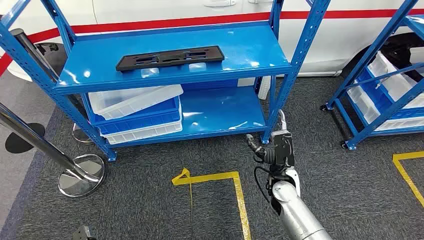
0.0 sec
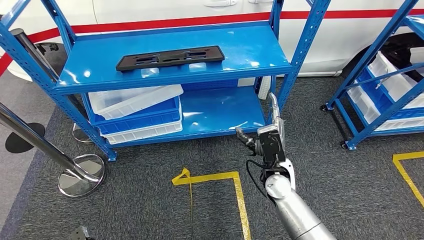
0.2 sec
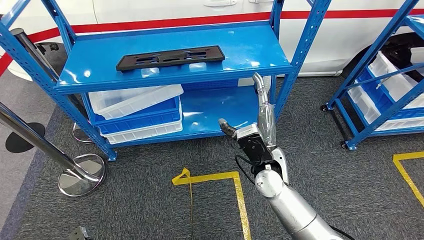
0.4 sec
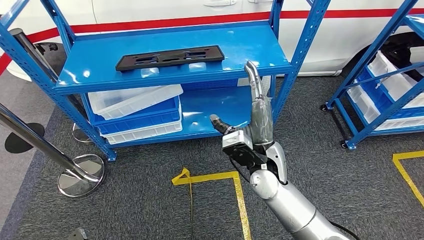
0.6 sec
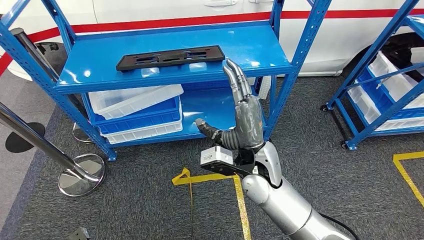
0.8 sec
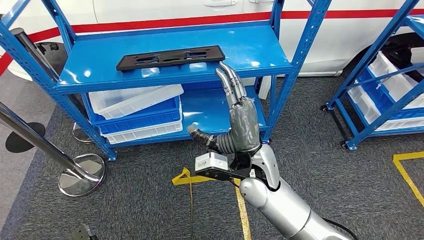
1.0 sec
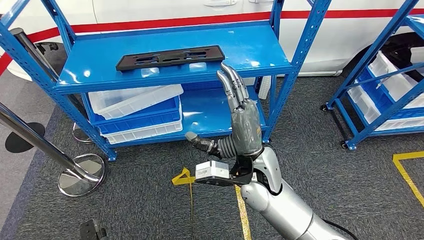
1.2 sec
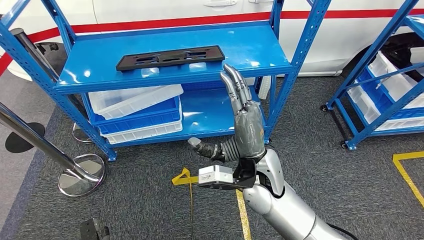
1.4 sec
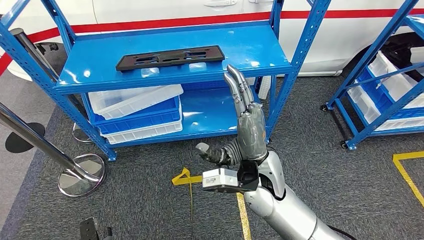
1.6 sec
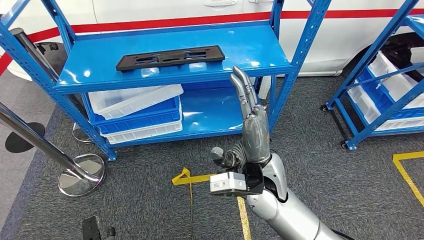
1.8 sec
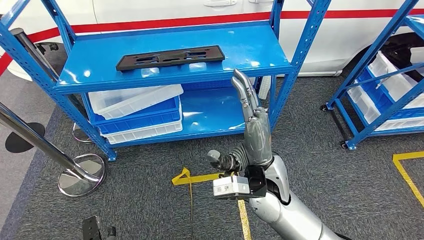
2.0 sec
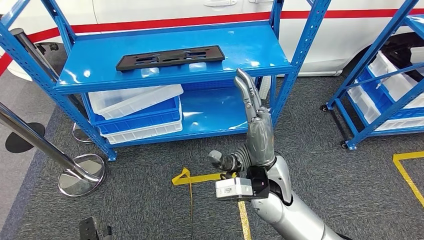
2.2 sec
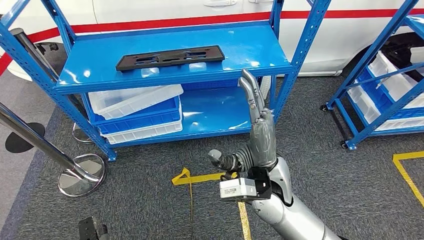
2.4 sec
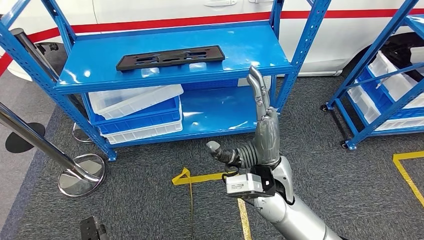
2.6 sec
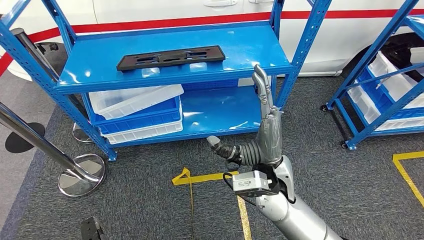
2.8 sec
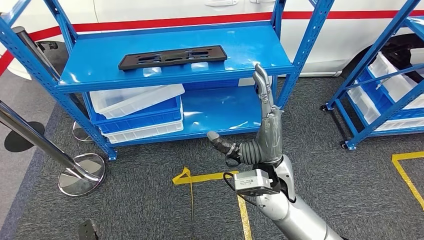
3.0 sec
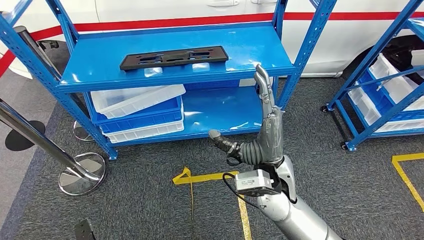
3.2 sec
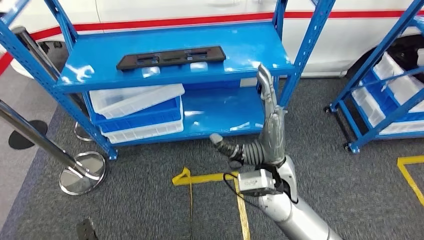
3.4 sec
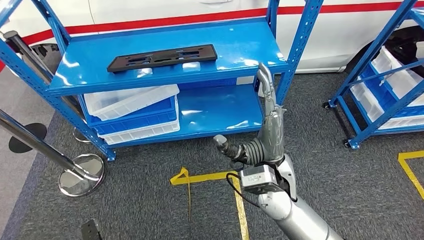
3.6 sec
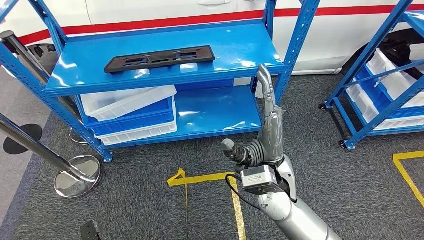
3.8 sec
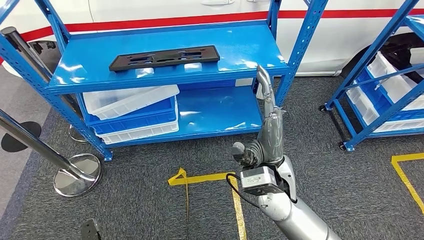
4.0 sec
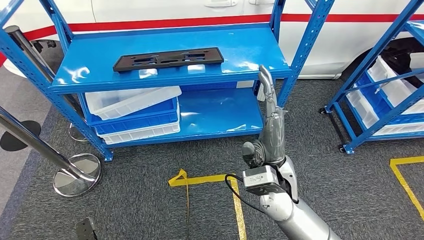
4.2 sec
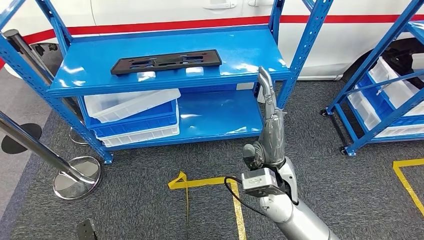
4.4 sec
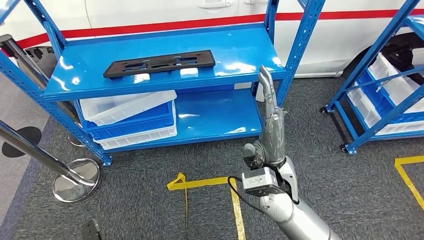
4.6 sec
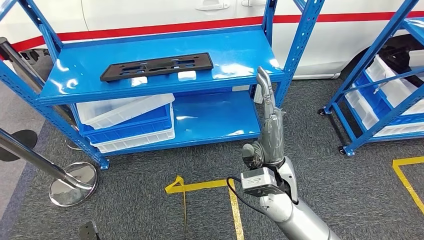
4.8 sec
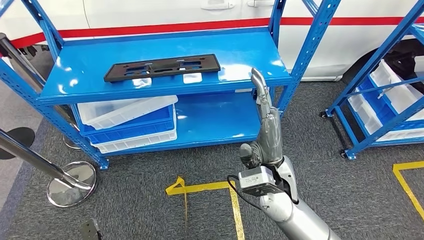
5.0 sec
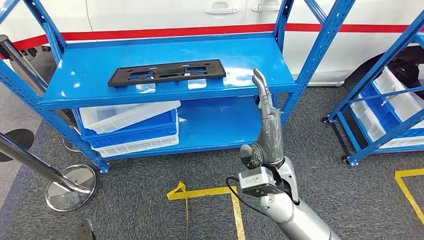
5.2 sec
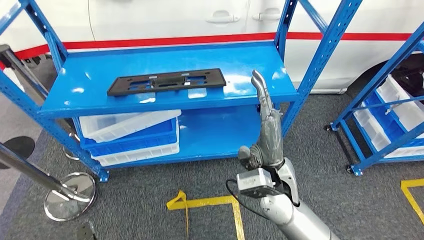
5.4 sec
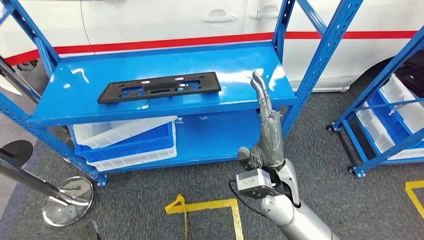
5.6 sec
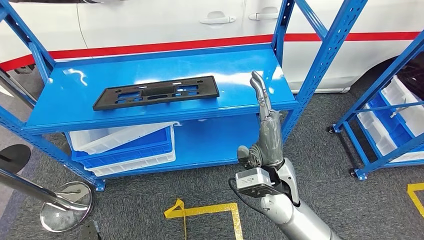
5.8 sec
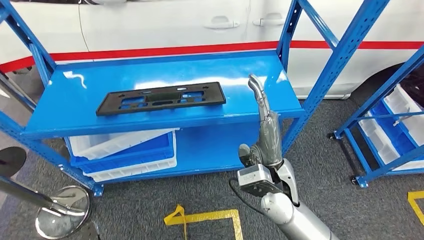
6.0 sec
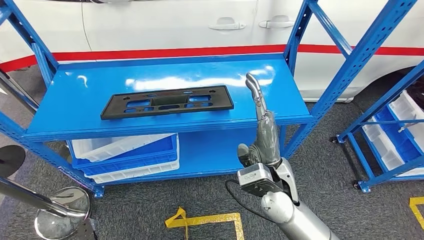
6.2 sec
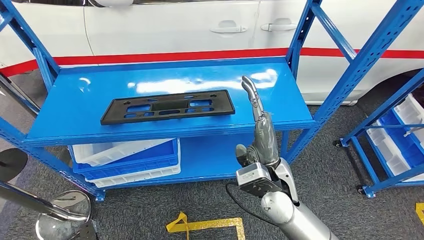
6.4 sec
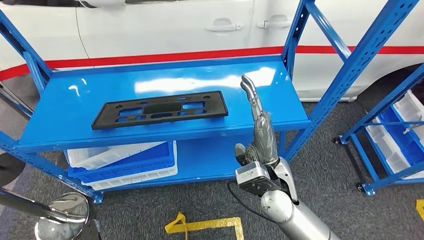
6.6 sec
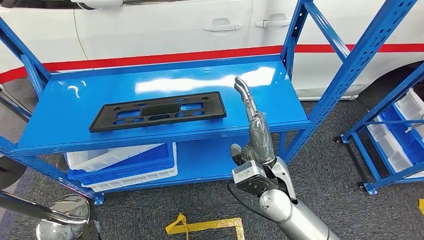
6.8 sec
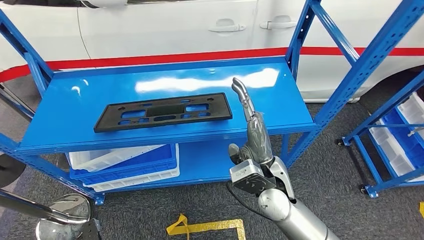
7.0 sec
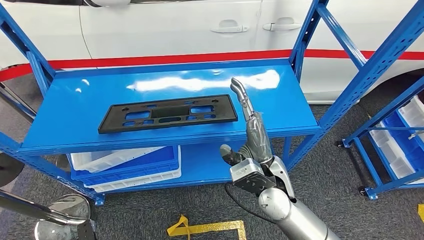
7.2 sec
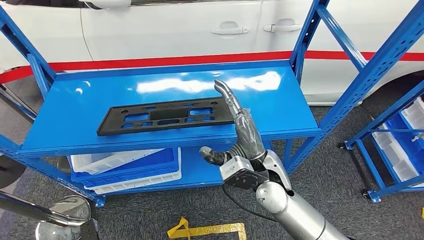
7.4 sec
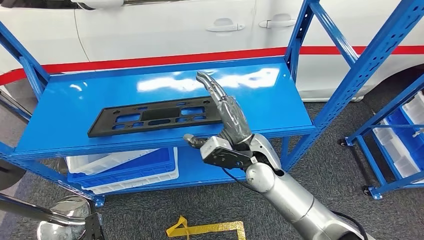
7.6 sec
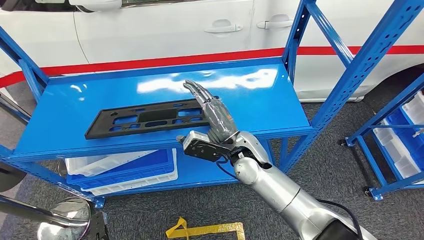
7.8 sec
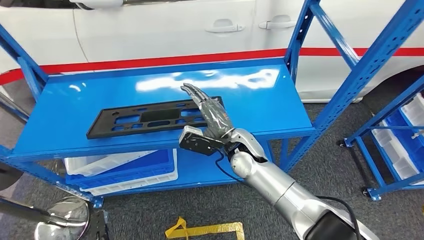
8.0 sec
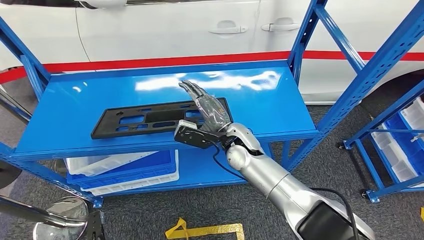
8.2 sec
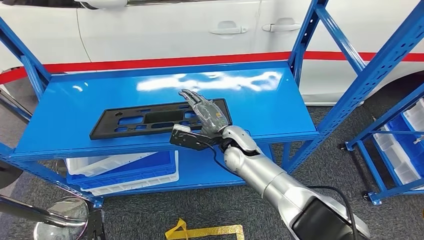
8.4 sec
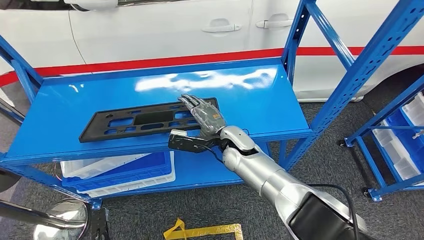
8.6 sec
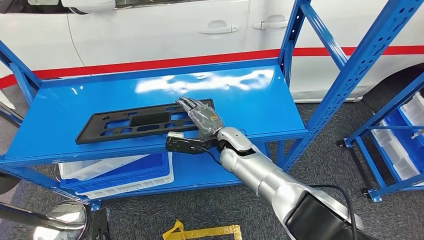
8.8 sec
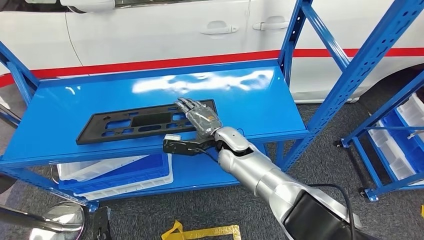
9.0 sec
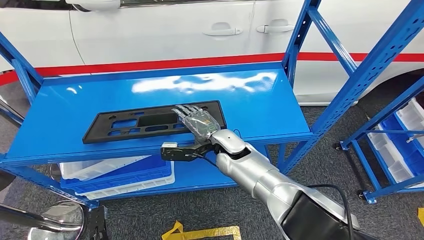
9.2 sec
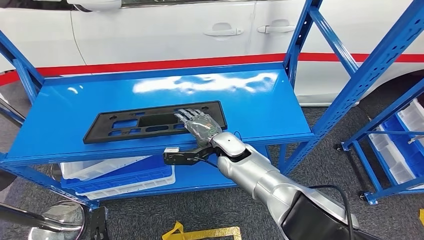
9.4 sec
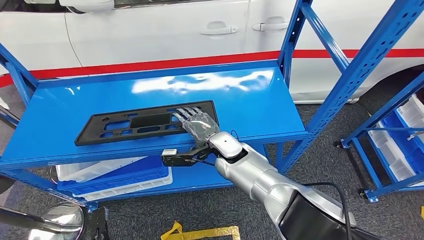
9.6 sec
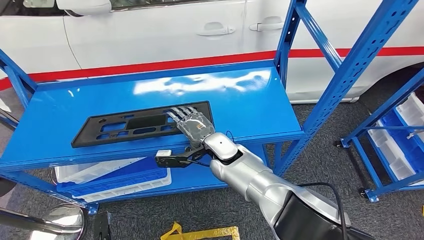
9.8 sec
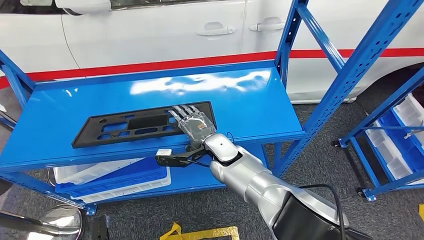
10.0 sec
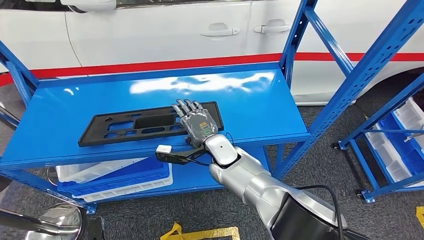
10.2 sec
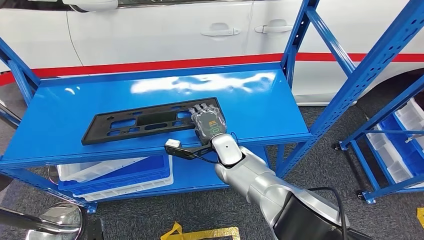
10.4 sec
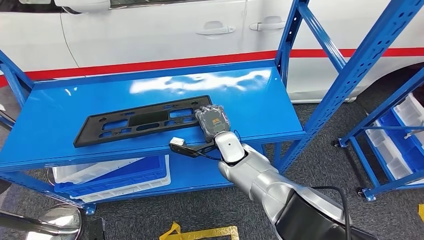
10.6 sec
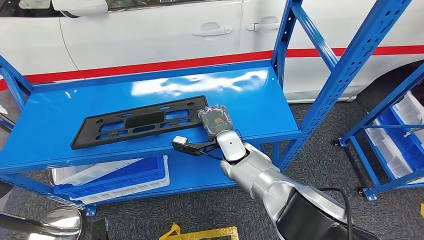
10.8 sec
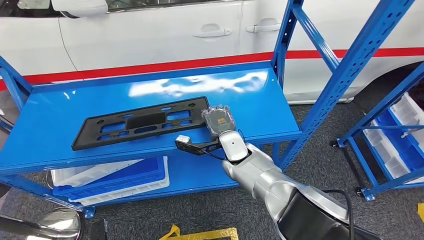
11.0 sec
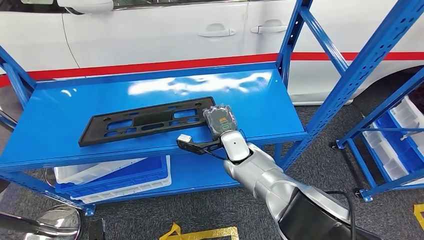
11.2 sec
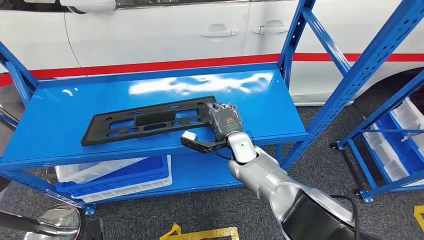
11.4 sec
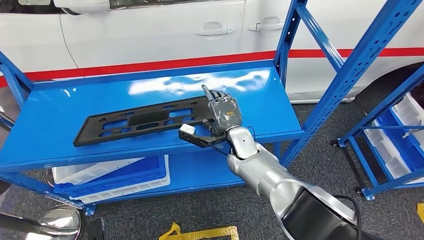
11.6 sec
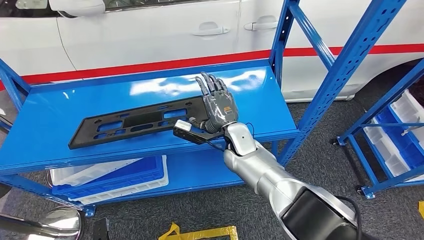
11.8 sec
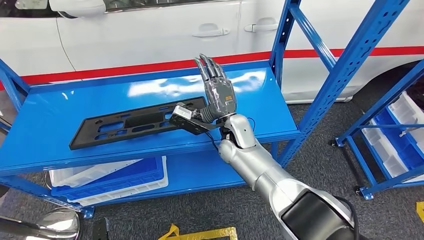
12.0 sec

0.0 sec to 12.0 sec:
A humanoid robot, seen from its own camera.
1.6 sec to 3.0 sec: There are only small adjustments of the hands.

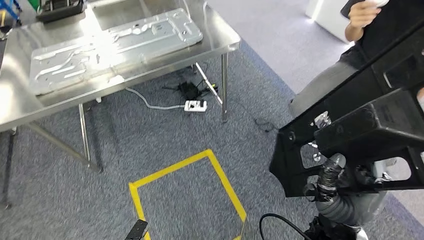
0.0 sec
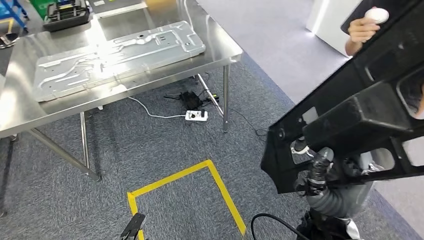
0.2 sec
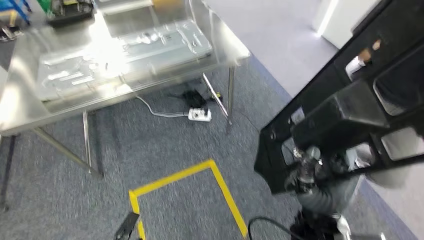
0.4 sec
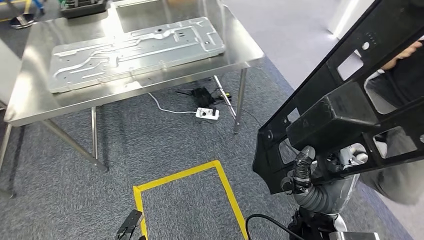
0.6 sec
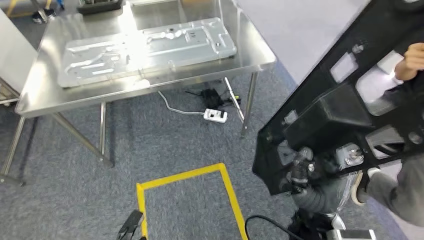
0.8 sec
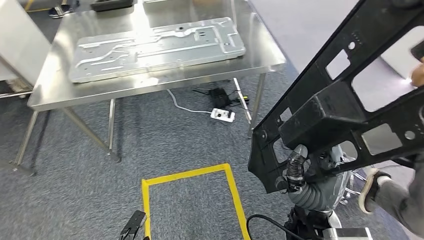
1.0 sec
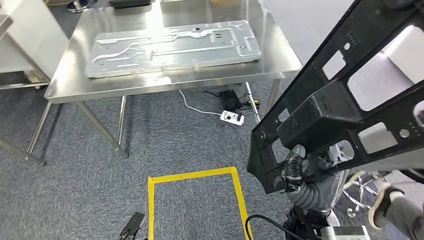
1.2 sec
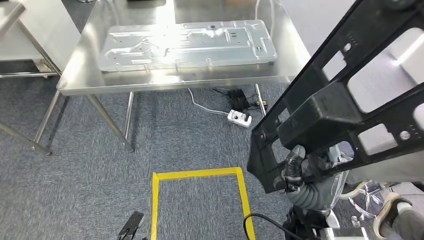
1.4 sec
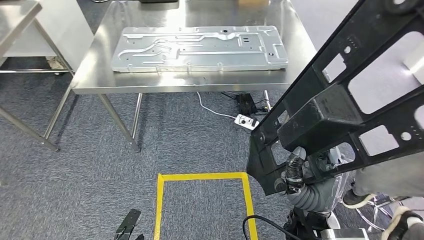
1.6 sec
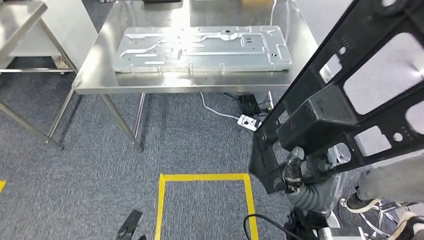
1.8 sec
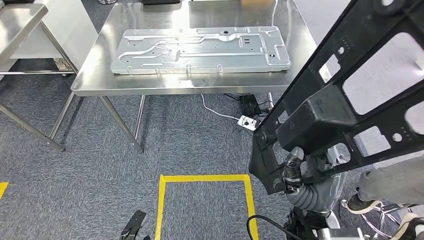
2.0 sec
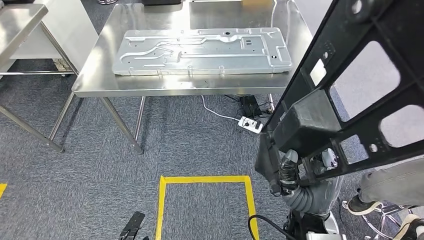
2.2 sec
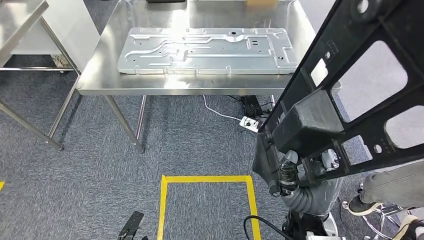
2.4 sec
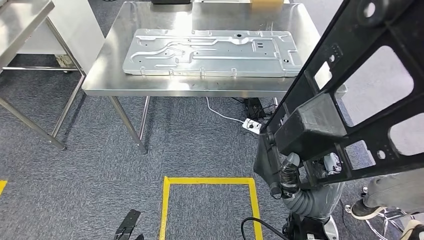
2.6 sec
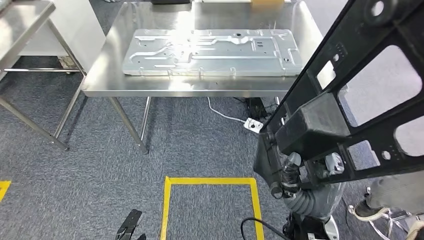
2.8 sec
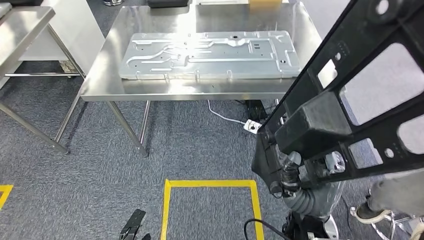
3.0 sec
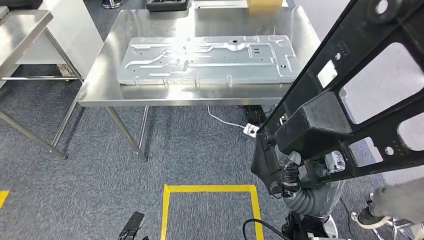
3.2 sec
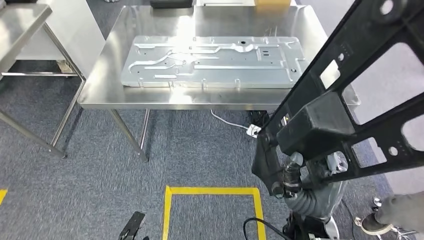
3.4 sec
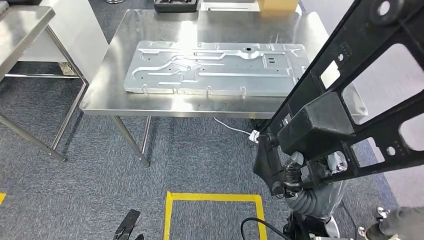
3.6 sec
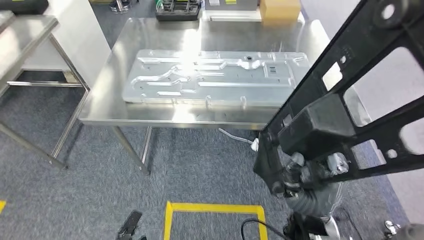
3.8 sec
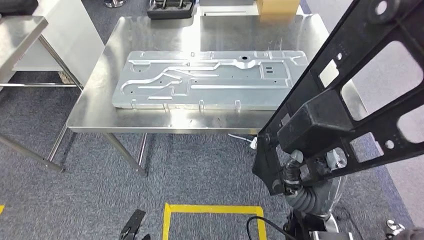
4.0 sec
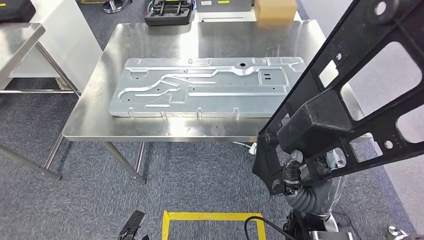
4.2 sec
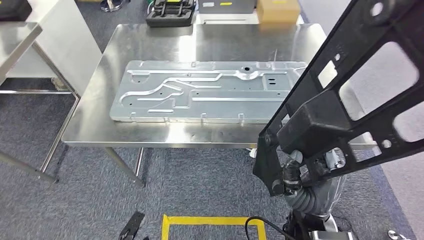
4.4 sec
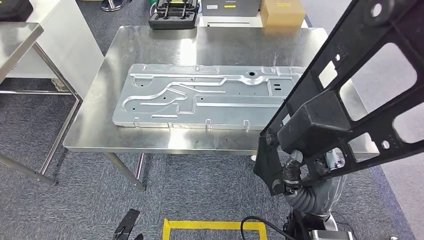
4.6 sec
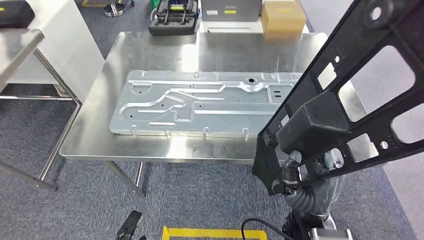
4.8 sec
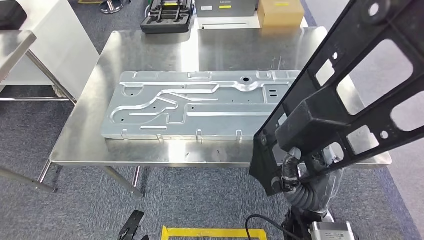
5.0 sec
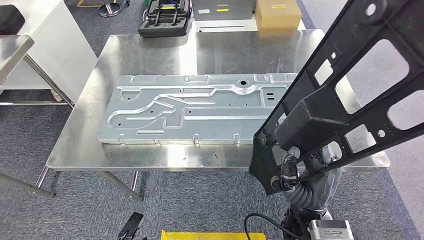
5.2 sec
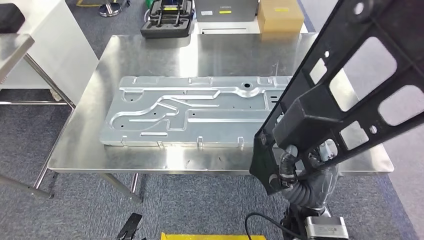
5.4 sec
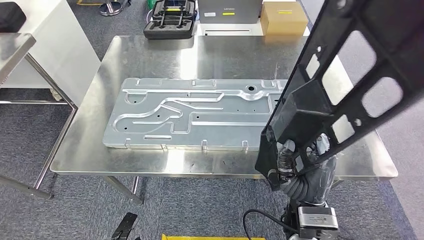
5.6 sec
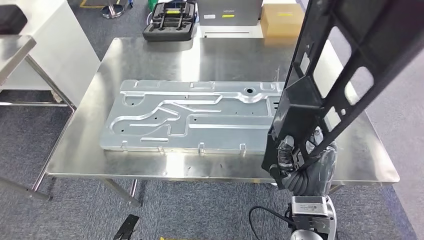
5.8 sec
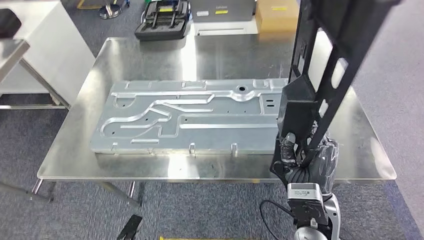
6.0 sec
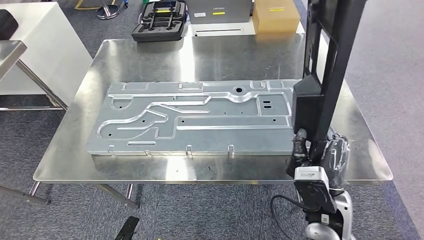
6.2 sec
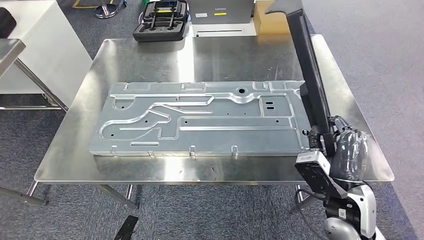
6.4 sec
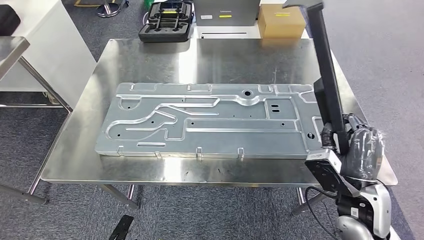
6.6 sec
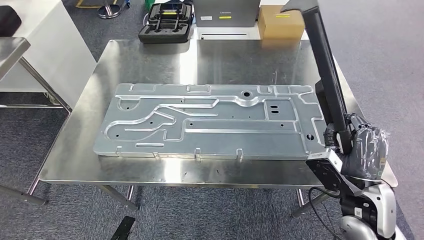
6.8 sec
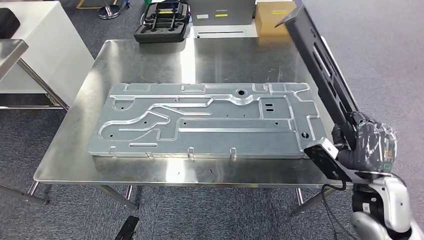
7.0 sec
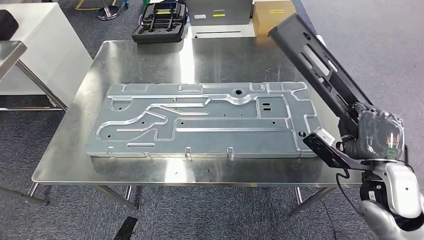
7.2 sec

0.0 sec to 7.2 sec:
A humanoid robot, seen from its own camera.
Step, 0.0 sec to 5.8 sec: Move the large material to the workbench.
